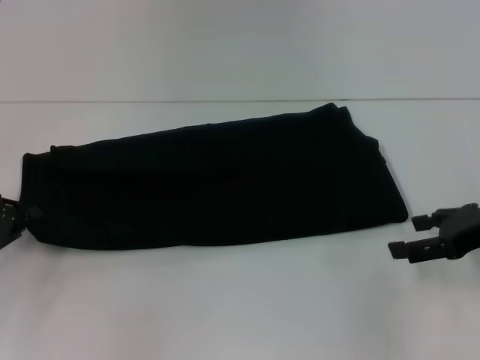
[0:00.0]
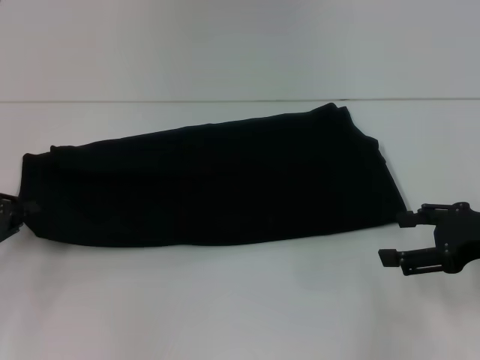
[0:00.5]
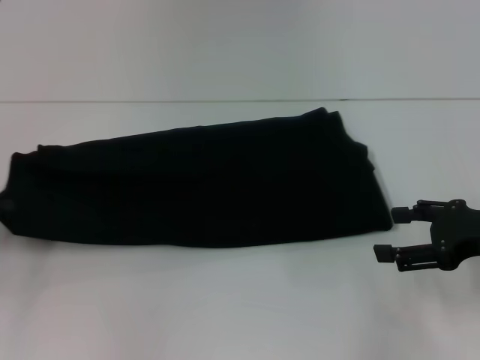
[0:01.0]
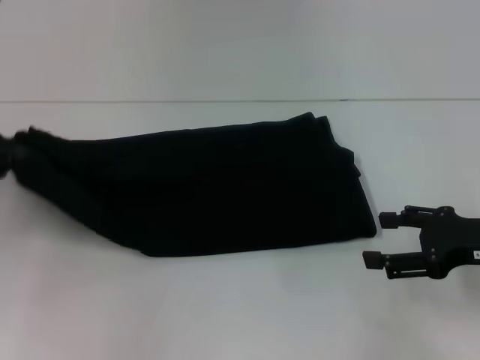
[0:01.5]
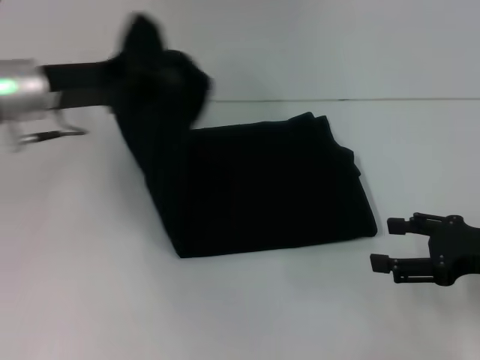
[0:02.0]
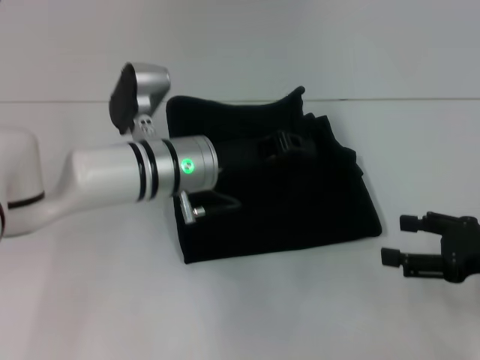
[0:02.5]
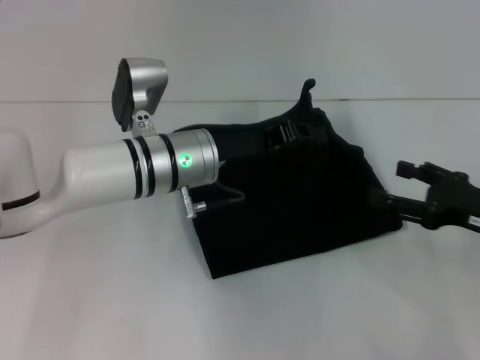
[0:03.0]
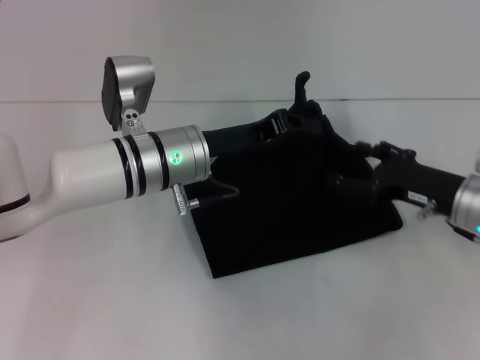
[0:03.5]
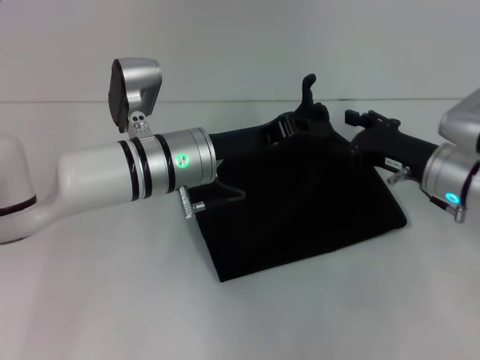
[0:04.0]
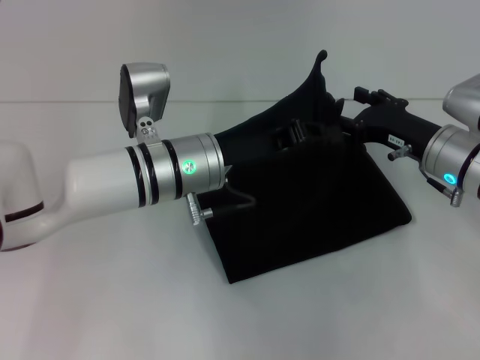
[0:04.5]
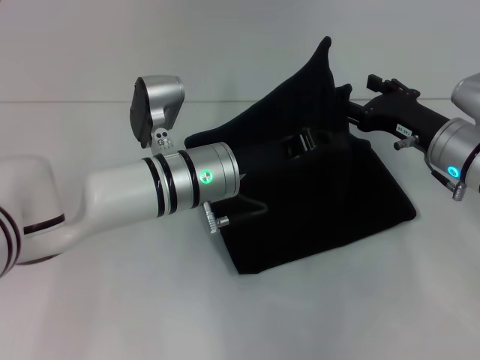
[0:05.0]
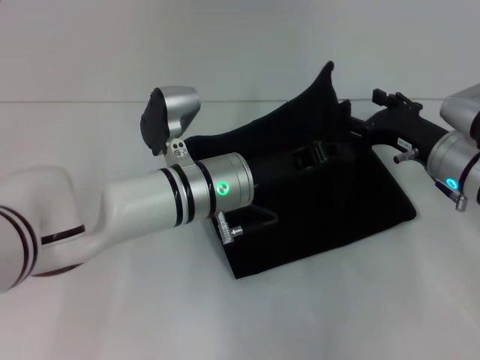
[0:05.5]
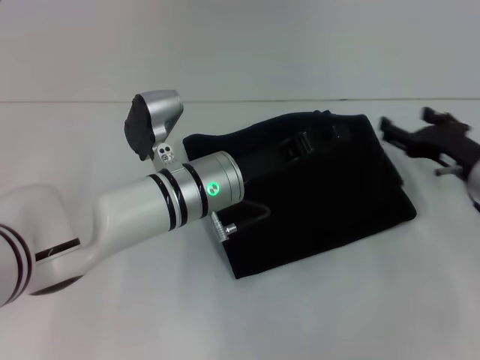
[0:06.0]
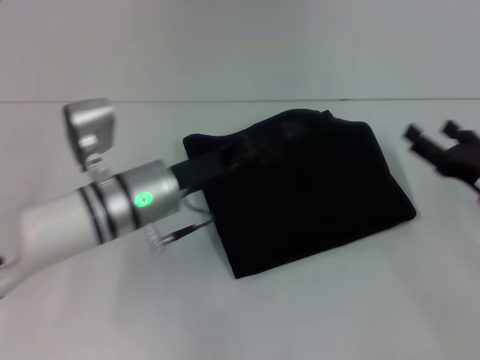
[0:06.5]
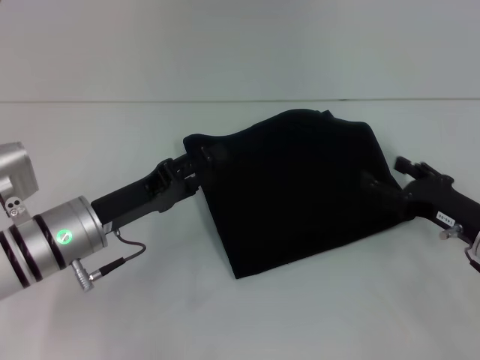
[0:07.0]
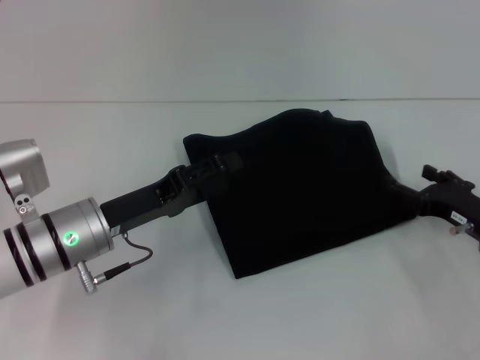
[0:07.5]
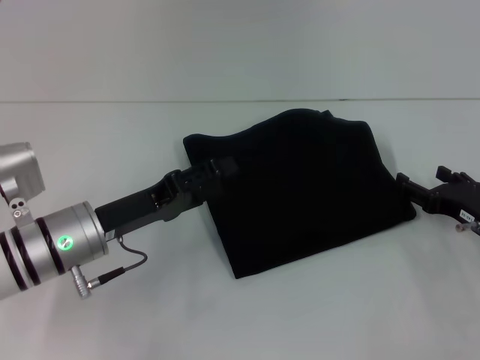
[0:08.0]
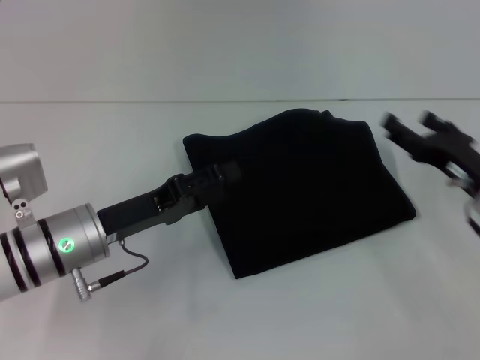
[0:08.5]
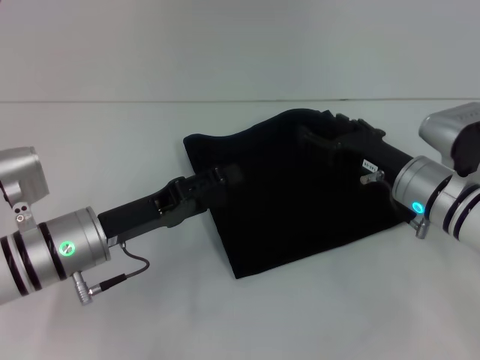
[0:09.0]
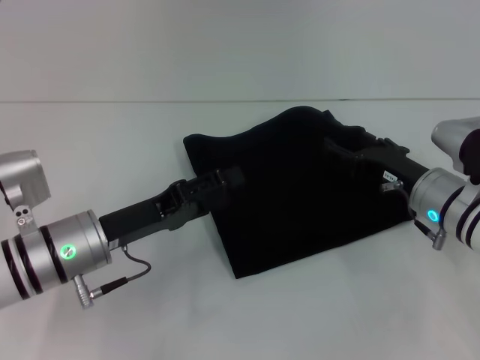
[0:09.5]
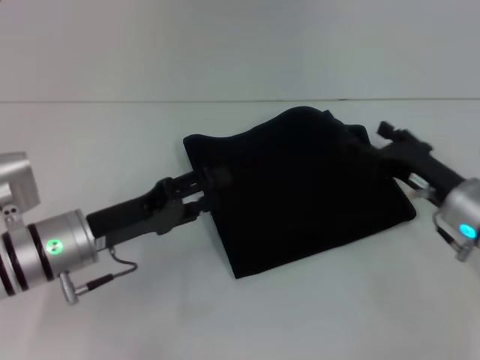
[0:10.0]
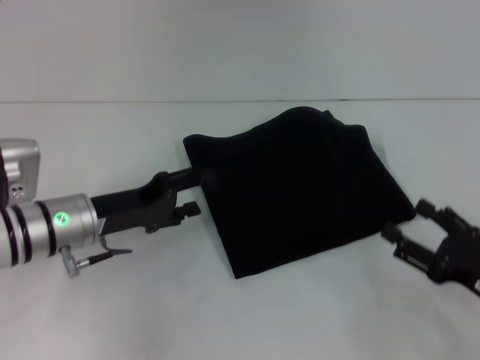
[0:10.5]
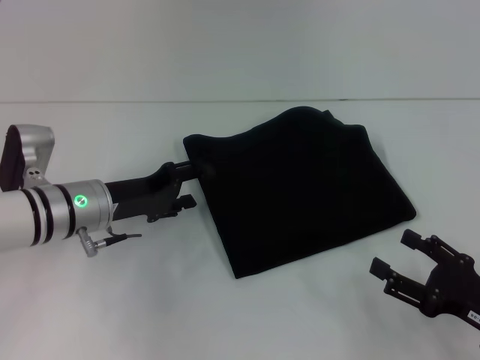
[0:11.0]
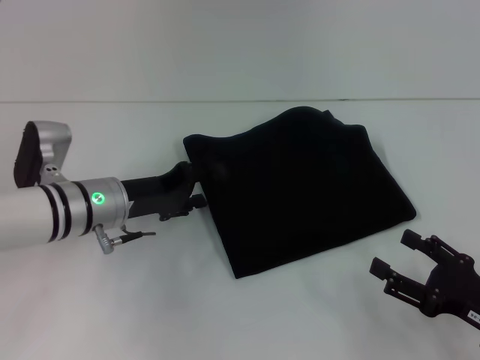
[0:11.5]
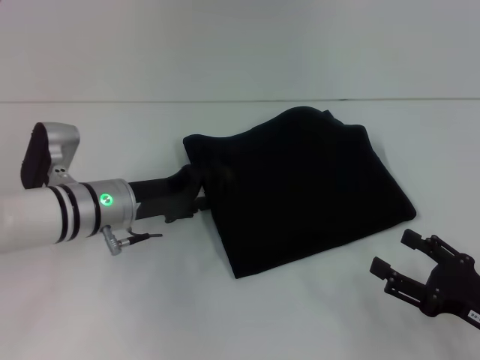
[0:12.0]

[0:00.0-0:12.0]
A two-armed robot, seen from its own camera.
Step, 0.0 to 6.0 s: Fold the clothes with your left hand.
0.0 to 2.0 s: The left gripper heads to the right, upward and forward, covering some 20 cm.
2.0 to 4.0 s: The right gripper travels forward and to the left by about 10 cm, while the left gripper moves to the right and downward, roughly 15 cm.
4.0 to 6.0 s: The right gripper moves about 5 cm.
6.0 to 8.0 s: The left gripper moves to the left and backward, about 15 cm, and opens, while the right gripper changes place by about 5 cm.
8.0 to 10.0 s: The right gripper shifts some 5 cm to the left.
10.0 to 12.0 s: The right gripper travels backward and to the right by some 15 cm. Meanwhile the left gripper moves forward, some 5 cm.

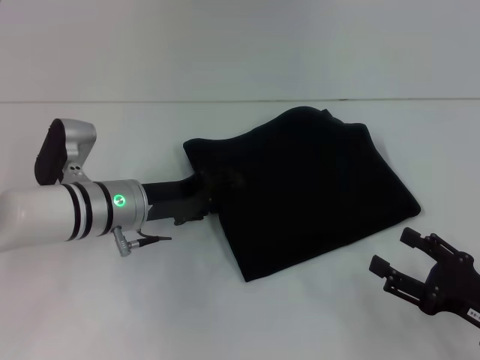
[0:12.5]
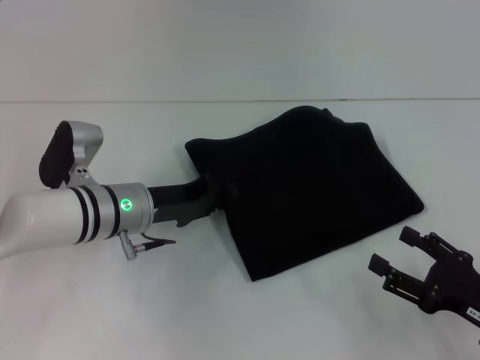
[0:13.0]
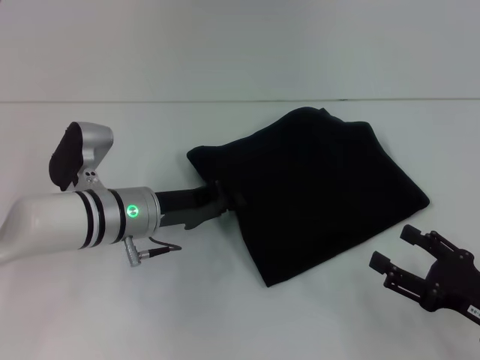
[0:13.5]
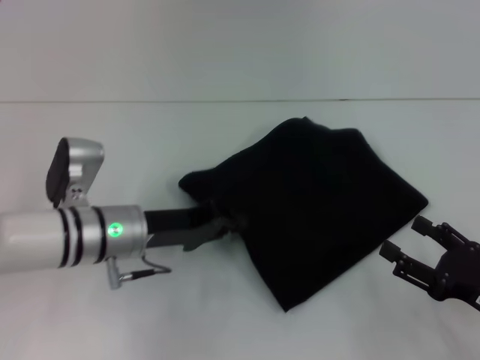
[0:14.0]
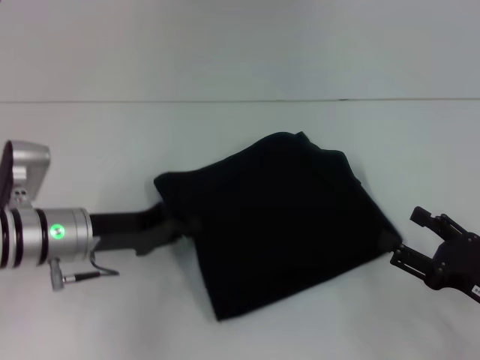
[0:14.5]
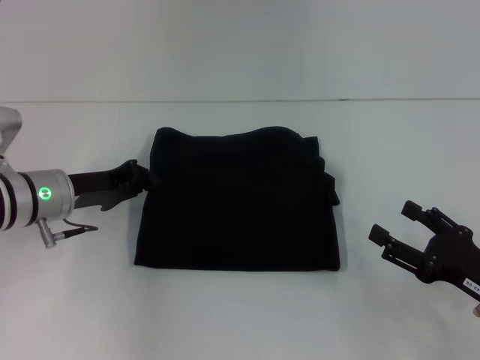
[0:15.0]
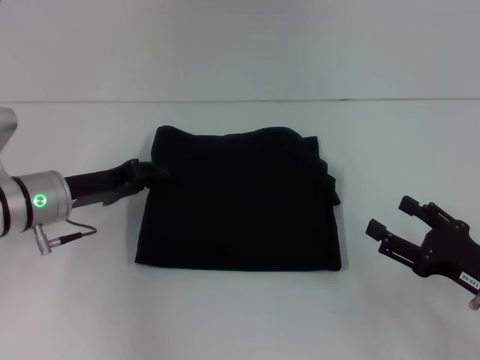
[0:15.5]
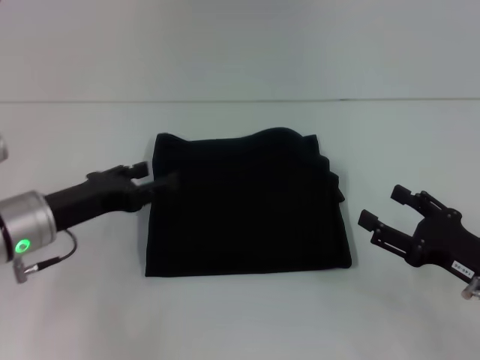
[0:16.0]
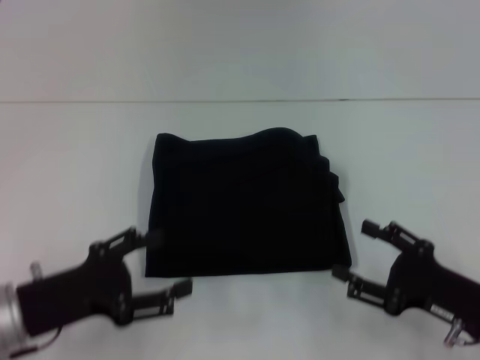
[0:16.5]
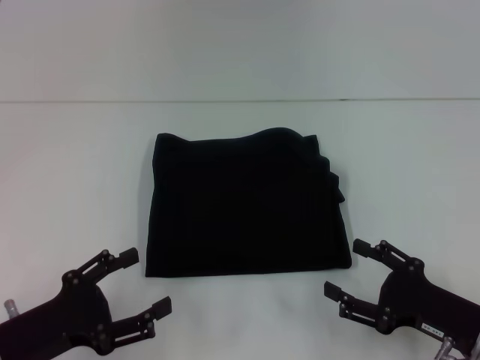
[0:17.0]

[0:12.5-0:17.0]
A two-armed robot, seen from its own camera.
12.5 to 14.5 s: The left gripper heads to the left, covering approximately 5 cm, and closes its fingers.
14.5 to 17.0 s: The left gripper goes roughly 15 cm backward, and opens.

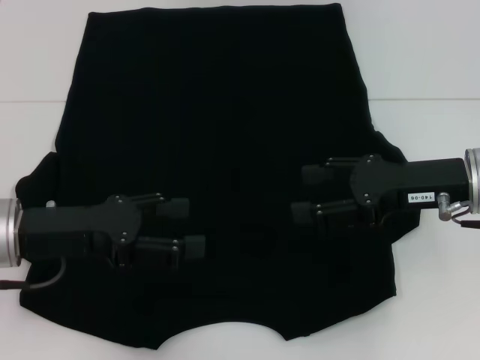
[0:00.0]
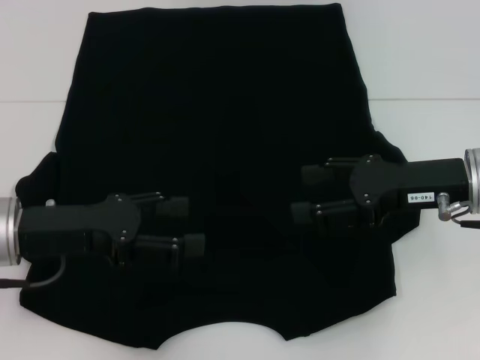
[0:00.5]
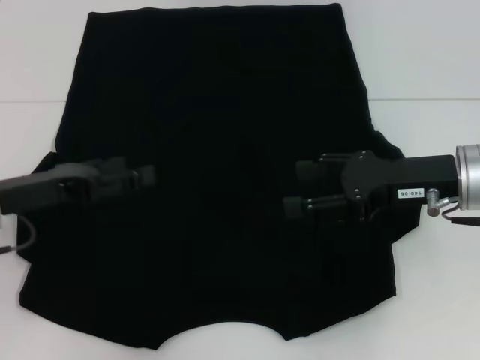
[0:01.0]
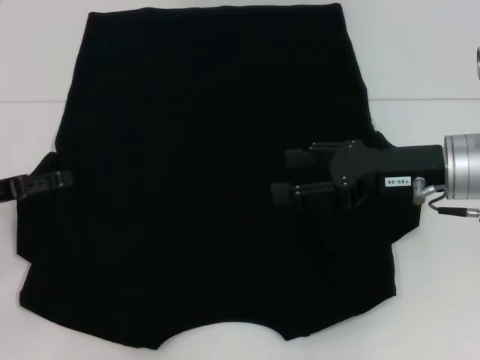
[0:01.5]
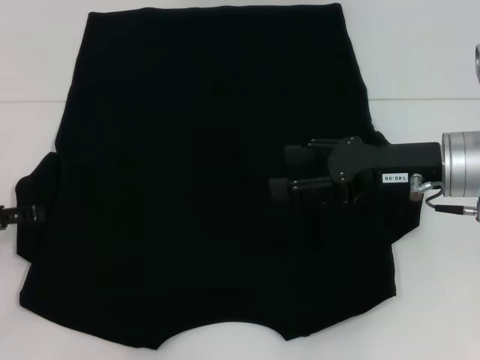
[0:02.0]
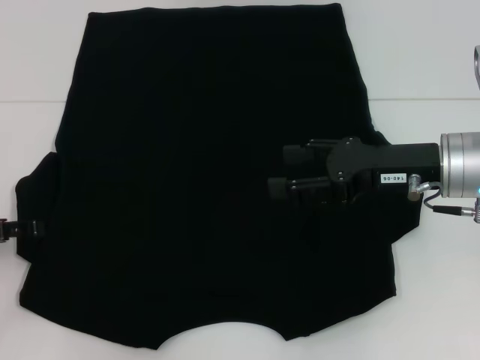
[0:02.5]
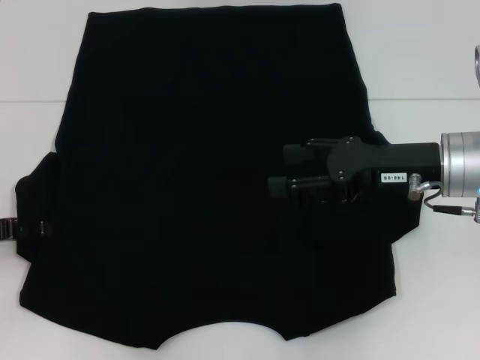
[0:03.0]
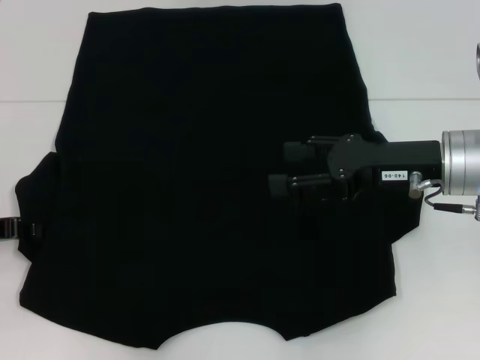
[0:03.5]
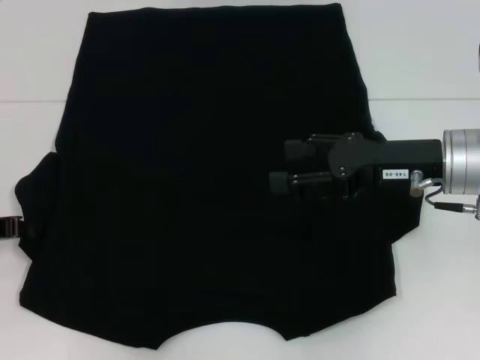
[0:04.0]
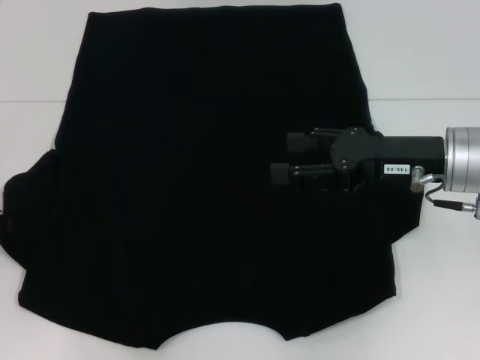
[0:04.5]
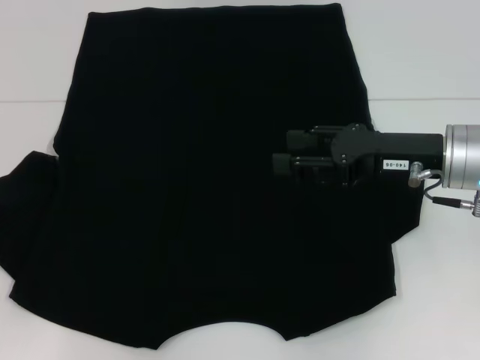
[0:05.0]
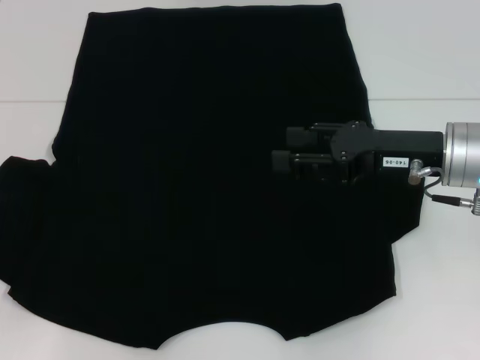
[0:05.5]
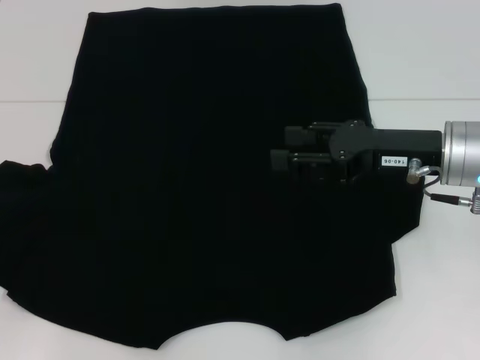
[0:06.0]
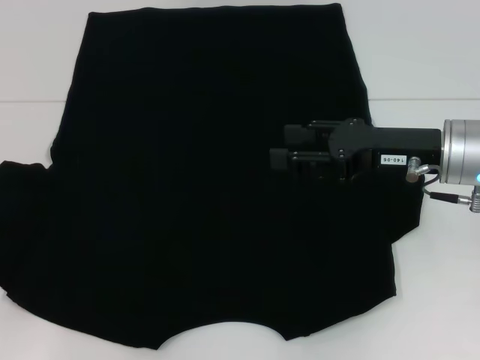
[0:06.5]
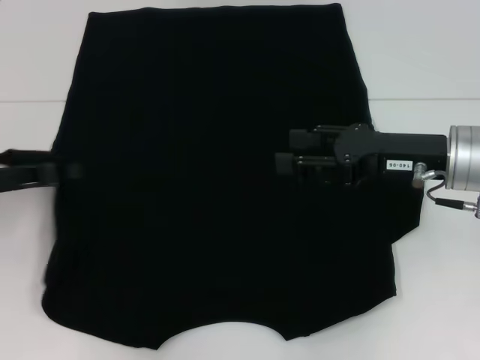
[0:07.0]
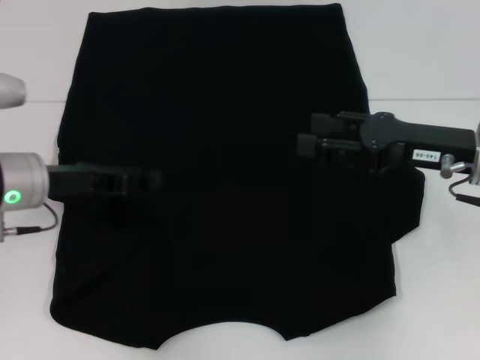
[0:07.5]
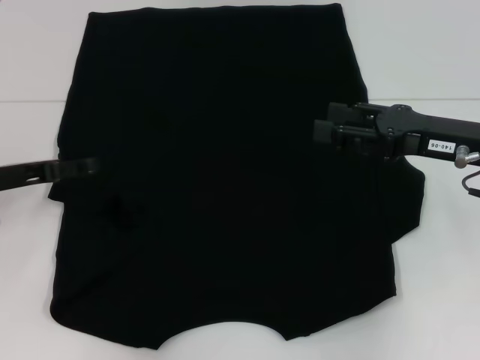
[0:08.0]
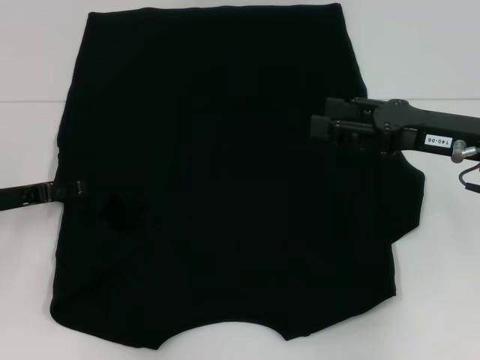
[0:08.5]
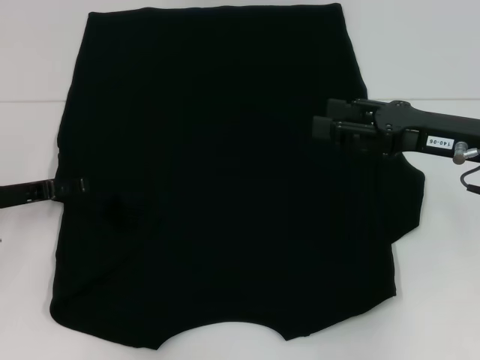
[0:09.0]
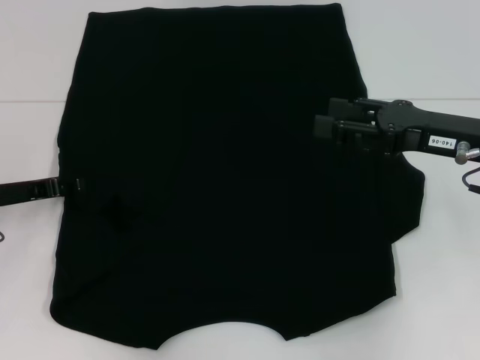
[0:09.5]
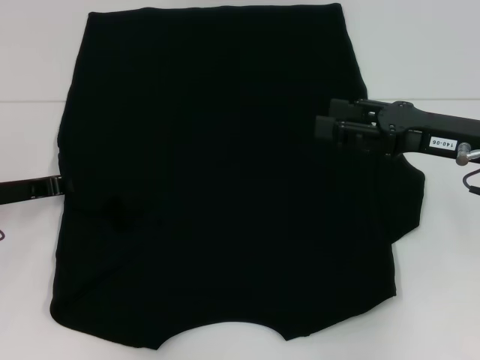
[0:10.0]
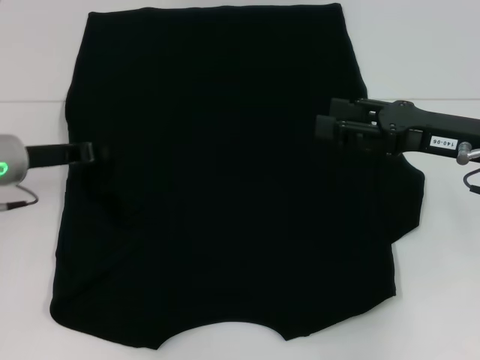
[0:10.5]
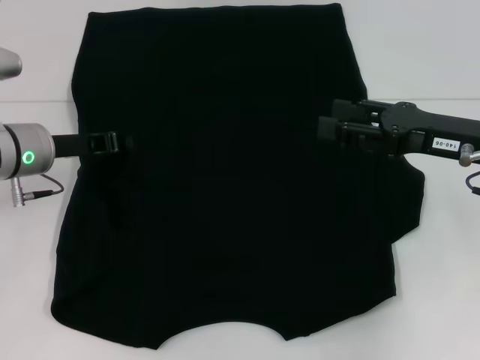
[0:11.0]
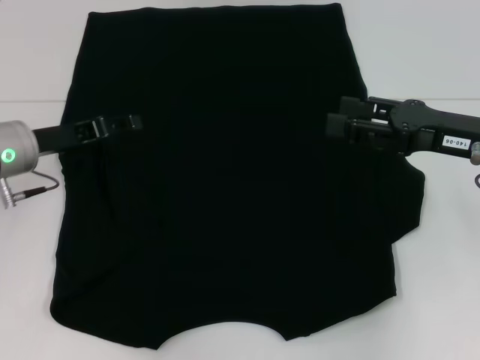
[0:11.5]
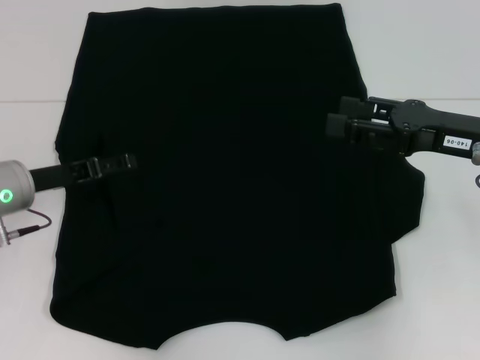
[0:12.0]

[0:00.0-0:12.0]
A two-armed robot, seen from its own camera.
0.0 to 2.0 s: The left gripper moves to the left, some 10 cm.
2.0 to 4.0 s: The left gripper closes its fingers.
4.0 to 6.0 s: The left gripper goes some 5 cm to the left.
6.0 to 8.0 s: The left gripper heads to the right and forward, covering some 10 cm, and opens.
8.0 to 10.0 s: The left gripper closes its fingers.
10.0 to 12.0 s: The left gripper opens its fingers.
